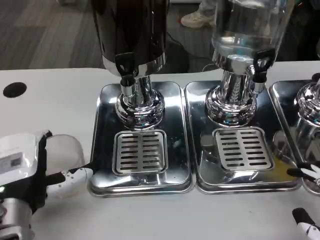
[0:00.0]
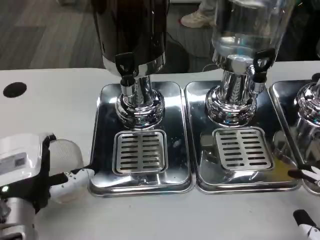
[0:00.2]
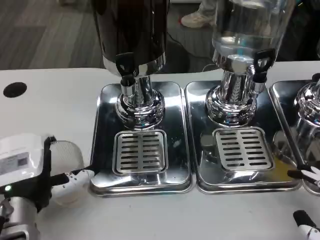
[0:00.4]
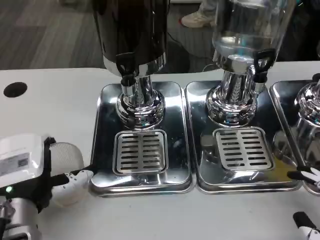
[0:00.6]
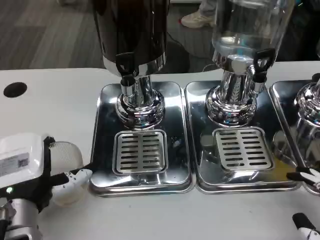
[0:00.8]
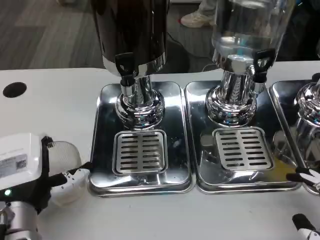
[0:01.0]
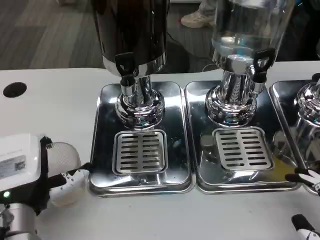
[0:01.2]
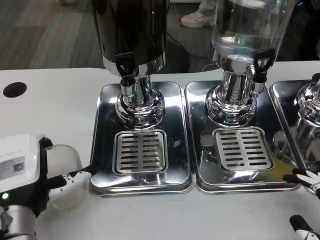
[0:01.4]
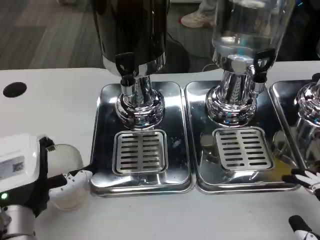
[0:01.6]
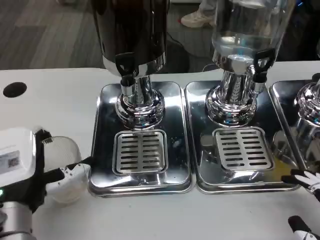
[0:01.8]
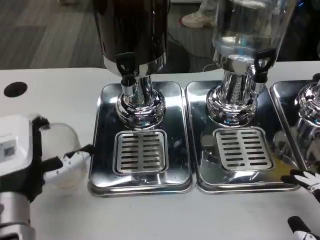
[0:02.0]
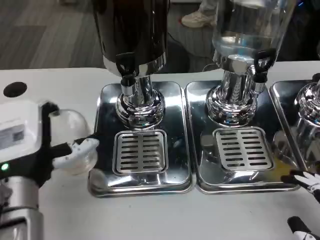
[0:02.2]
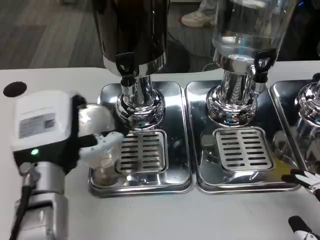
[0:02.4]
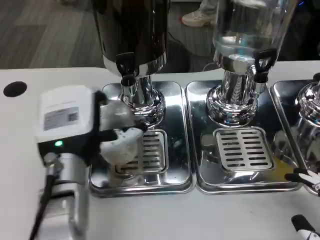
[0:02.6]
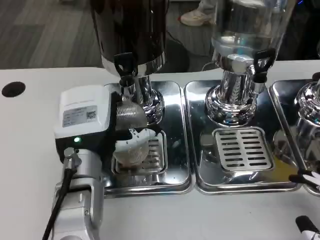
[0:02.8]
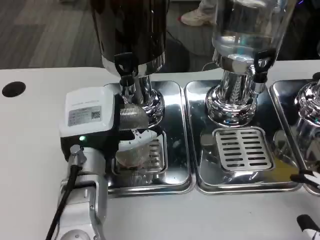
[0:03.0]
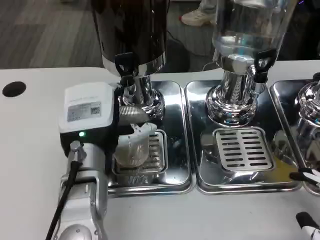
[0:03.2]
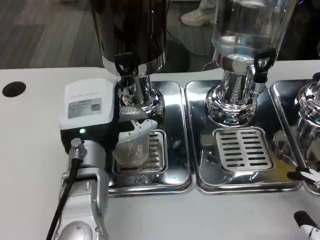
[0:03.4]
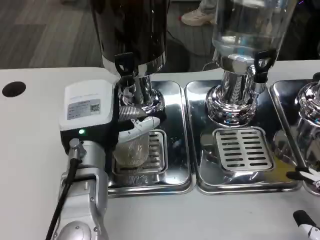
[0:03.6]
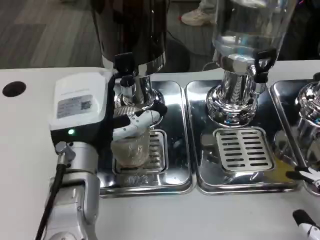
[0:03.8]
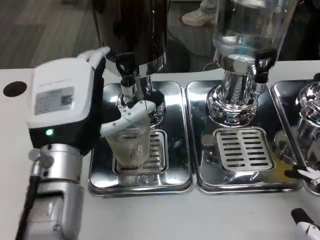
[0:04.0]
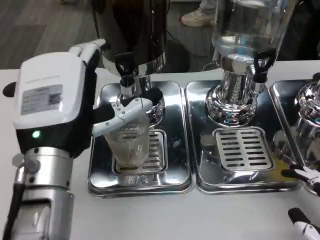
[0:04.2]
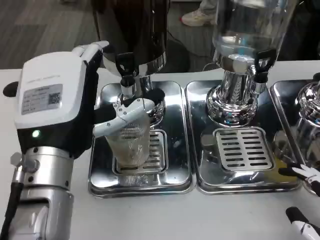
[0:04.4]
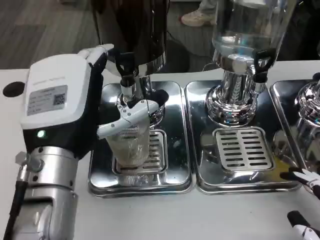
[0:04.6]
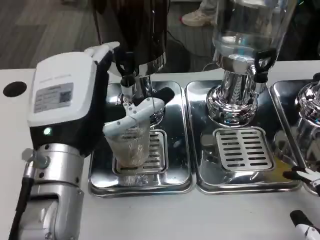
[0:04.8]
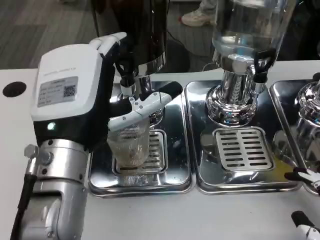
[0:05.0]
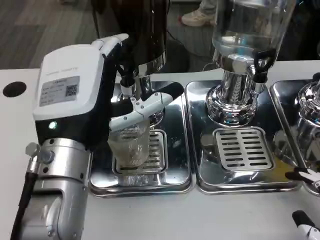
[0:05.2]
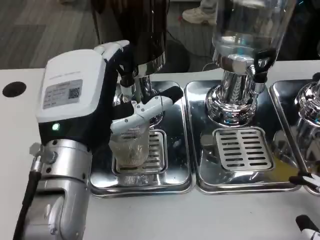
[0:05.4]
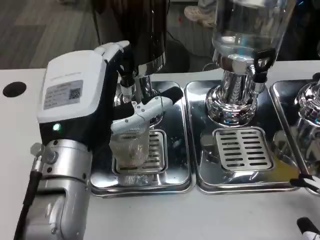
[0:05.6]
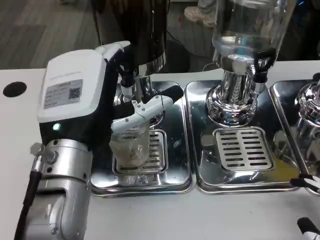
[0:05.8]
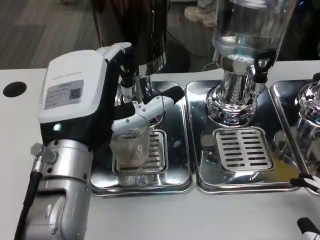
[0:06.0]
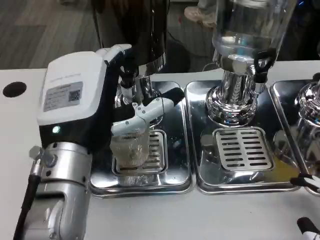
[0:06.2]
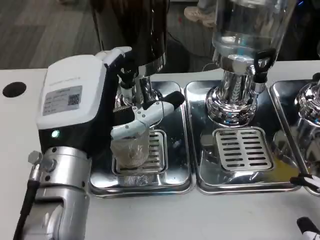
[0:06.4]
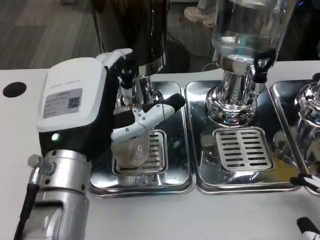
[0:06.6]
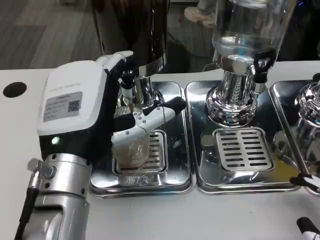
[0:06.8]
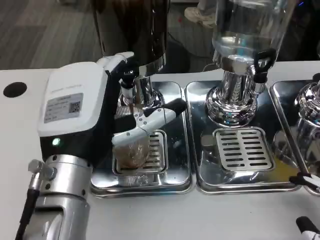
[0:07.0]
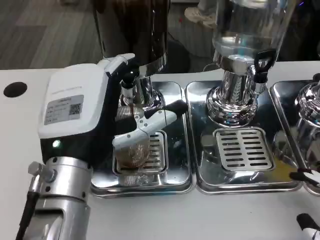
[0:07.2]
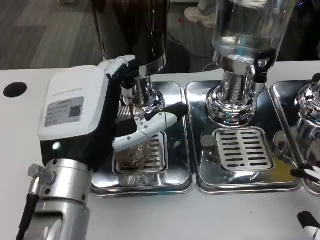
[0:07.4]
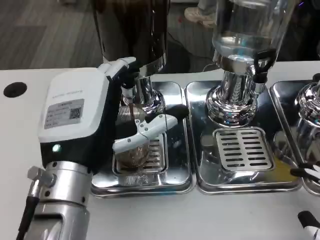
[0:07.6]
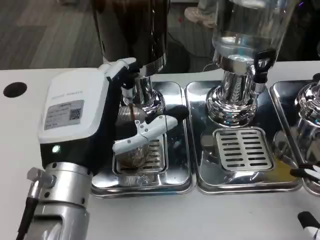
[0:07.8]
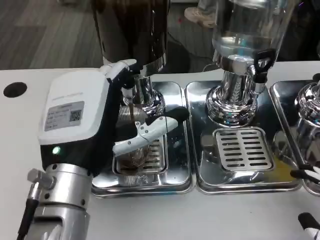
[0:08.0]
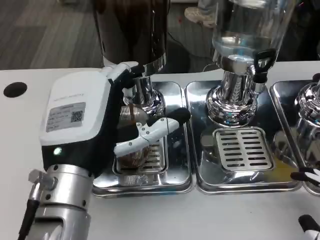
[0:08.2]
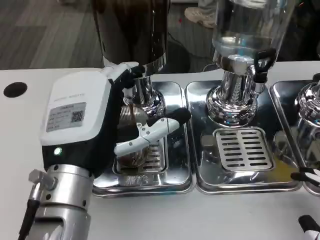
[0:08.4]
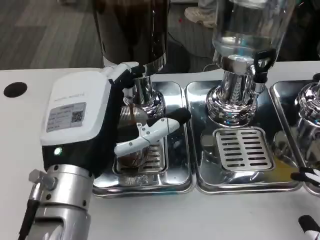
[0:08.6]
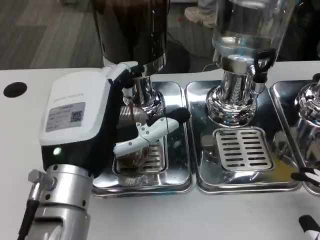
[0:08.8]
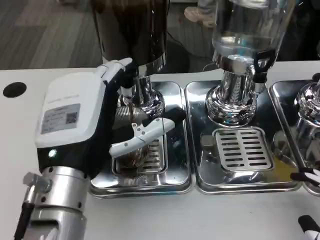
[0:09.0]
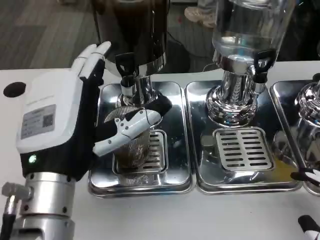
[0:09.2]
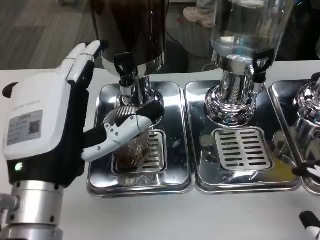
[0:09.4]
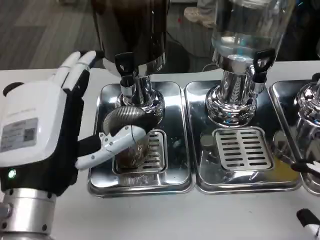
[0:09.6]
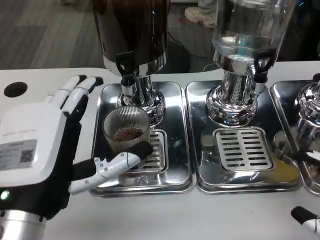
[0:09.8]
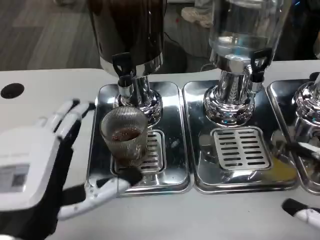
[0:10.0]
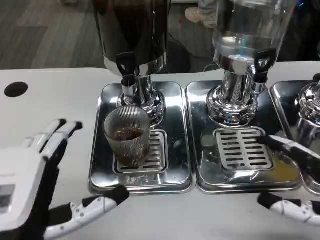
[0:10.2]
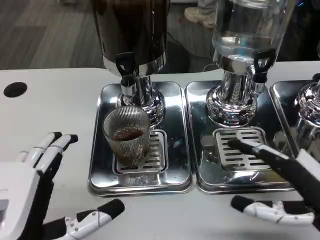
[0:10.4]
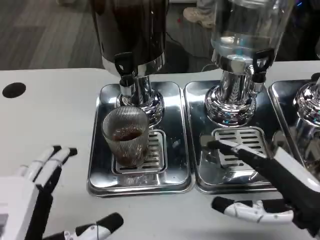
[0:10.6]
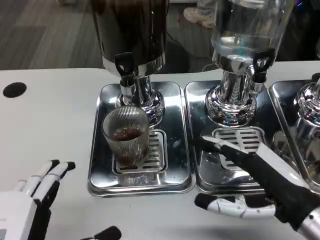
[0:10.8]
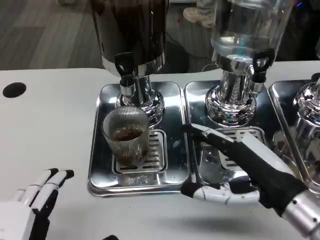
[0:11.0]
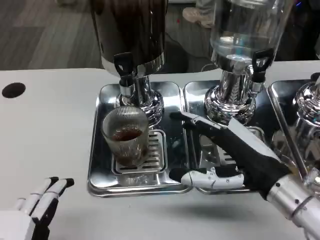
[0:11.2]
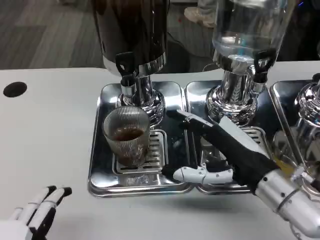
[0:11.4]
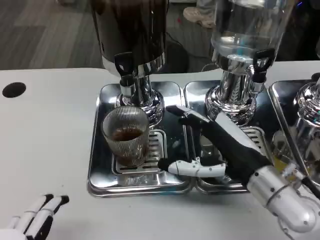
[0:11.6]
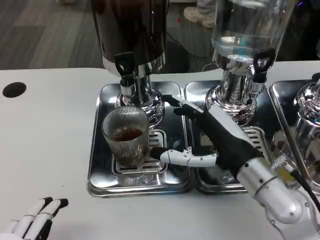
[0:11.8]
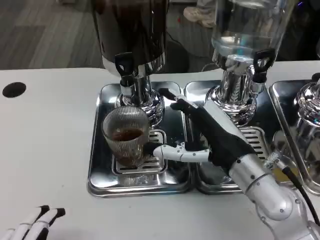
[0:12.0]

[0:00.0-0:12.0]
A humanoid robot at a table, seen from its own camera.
Task of the whole recording: Grasp the cup under the faucet to collect the drink, then remove the cup.
0:00.0 to 0:01.6: The hands move only a little.
0:01.6 to 0:03.0: The left hand is displaced forward and to the right by roughly 10 cm.
0:03.0 to 0:04.4: The left hand moves upward, some 5 cm.
0:07.6 to 0:09.0: The two hands keep their place.
0:09.0 to 0:10.4: The left hand is displaced backward and to the left by approximately 10 cm. Meanwhile the right hand is displaced forward by some 10 cm.
0:10.4 to 0:12.0: The left hand shifts some 5 cm backward, while the right hand goes approximately 15 cm to the left and forward.

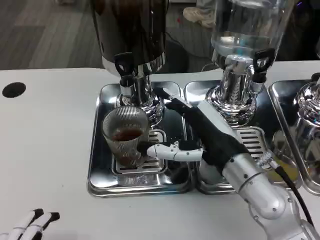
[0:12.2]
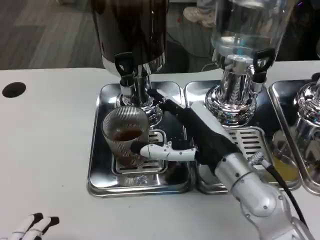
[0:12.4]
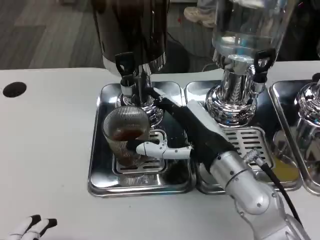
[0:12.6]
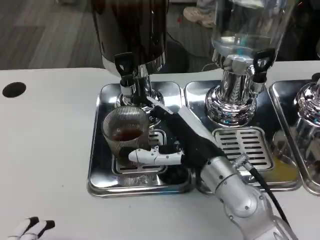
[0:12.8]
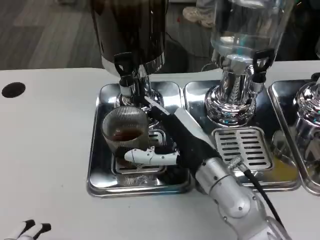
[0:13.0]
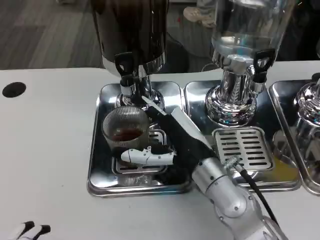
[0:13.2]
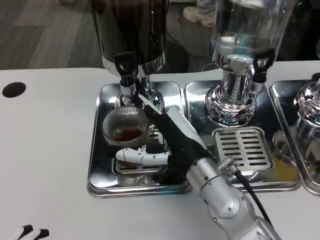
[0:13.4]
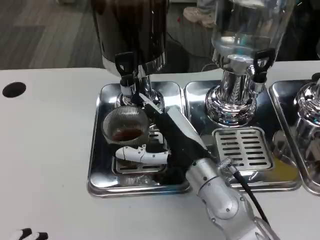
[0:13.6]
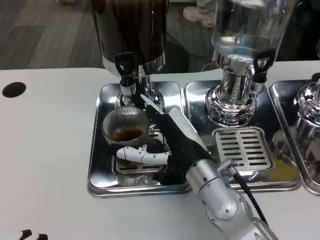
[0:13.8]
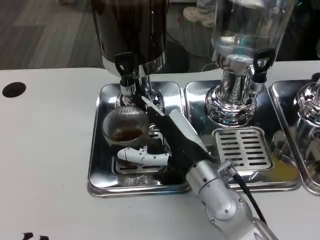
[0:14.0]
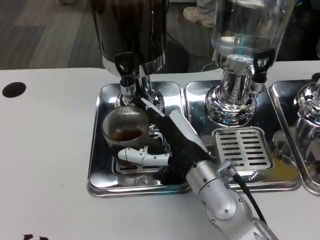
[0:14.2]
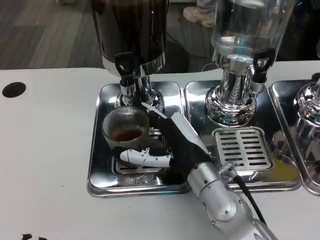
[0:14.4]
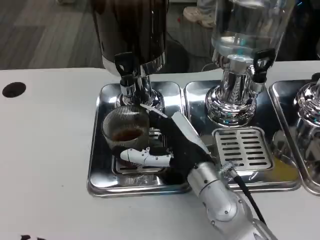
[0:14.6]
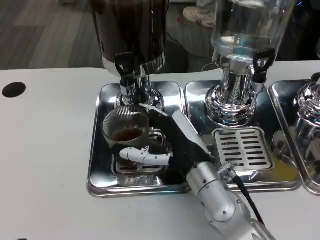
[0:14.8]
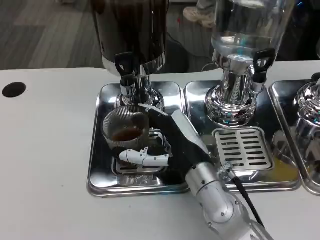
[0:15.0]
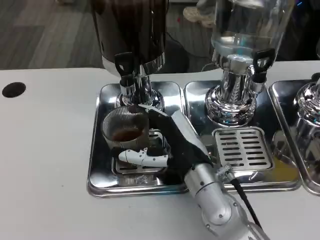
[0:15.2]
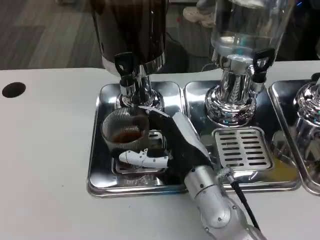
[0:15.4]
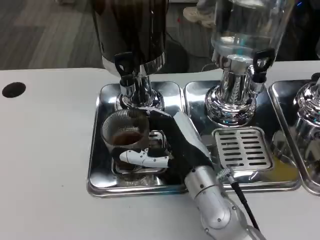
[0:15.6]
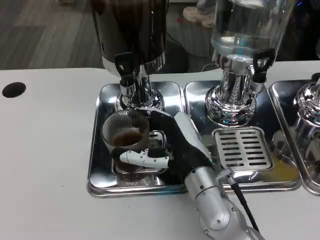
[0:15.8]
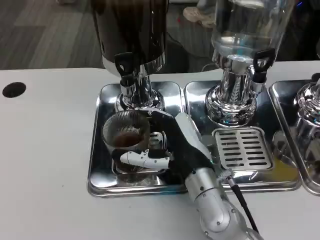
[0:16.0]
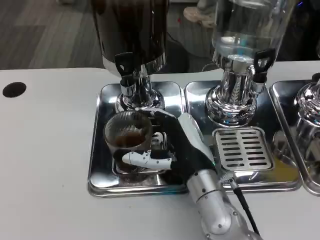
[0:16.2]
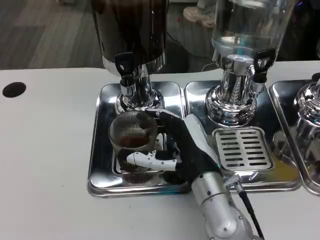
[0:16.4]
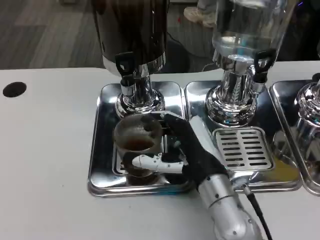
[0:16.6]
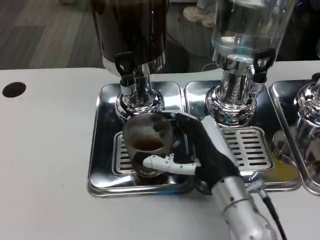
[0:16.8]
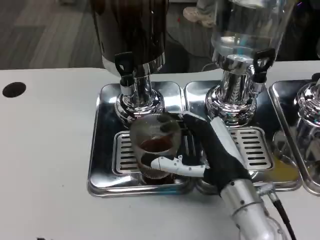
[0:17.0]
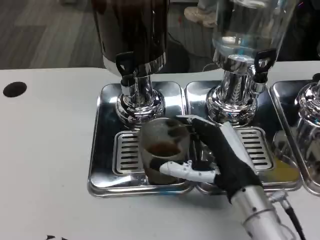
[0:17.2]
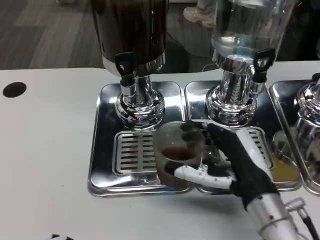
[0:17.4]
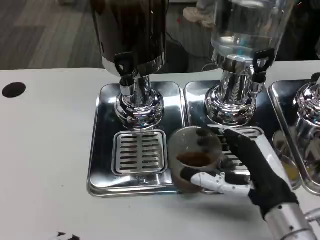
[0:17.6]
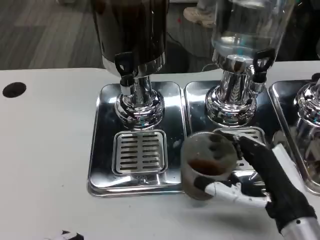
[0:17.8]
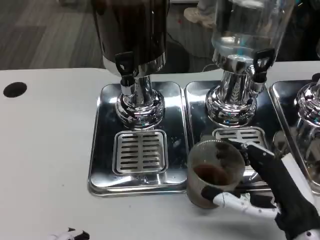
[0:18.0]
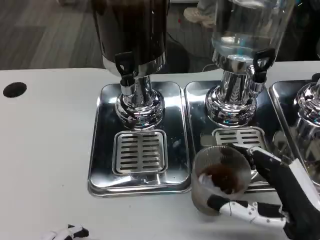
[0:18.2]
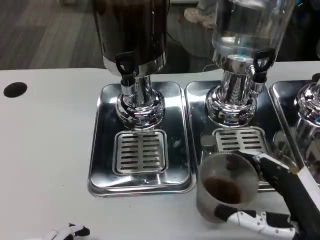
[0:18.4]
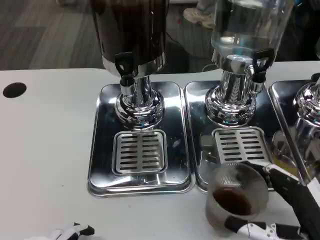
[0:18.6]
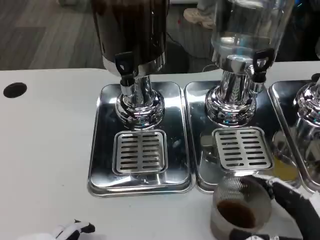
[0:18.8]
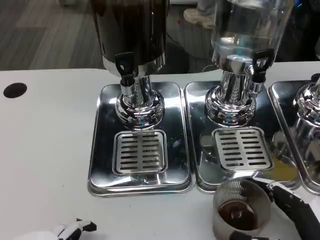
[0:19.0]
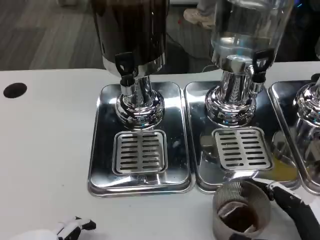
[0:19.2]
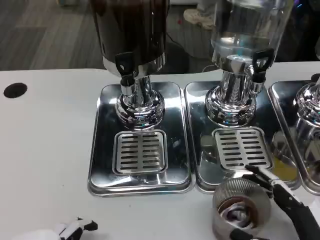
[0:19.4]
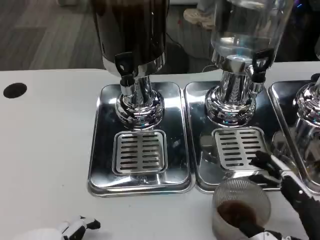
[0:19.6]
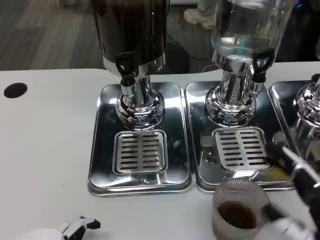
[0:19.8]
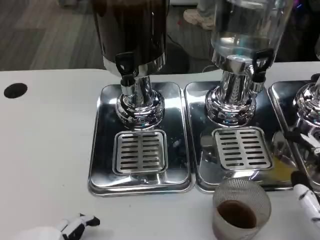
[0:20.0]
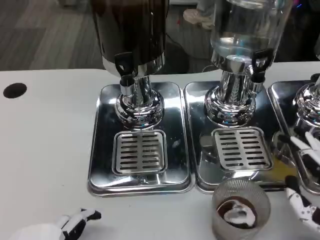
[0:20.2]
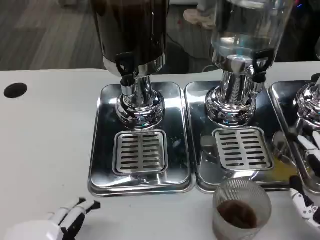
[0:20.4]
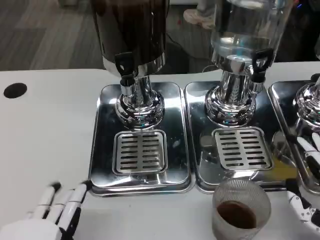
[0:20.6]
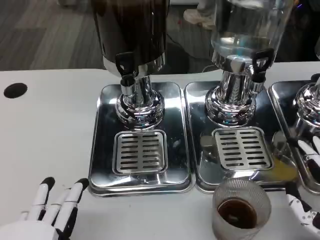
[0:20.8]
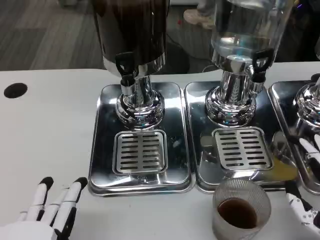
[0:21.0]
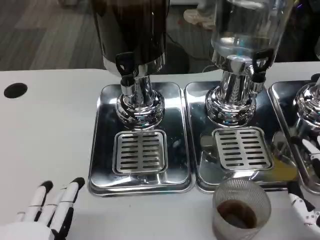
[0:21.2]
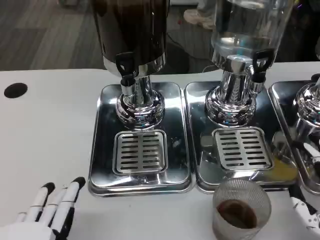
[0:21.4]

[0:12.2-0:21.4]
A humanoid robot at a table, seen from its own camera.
Task of the whole recording: Grasp the cup under the faucet to collect the drink, then remove the cup.
0:12.2 to 0:13.8: The right hand shifts about 5 cm to the left.
0:13.8 to 0:15.2: Both hands stay about where they are.
0:15.2 to 0:16.8: The hands move only a little.
0:16.8 to 0:18.4: The right hand travels to the right and backward by roughly 15 cm.
0:18.4 to 0:19.8: The hands make only small movements.

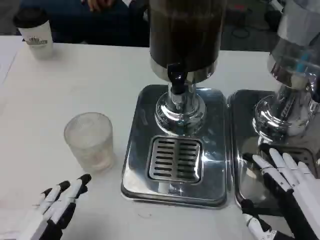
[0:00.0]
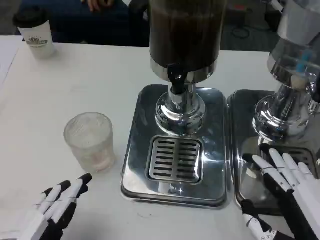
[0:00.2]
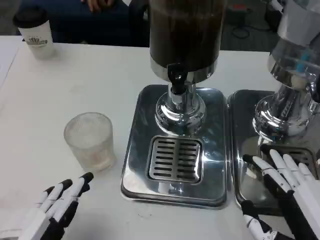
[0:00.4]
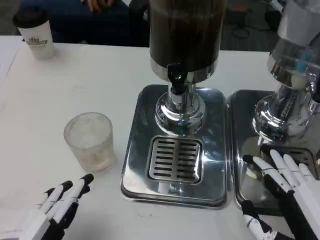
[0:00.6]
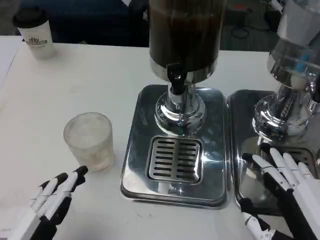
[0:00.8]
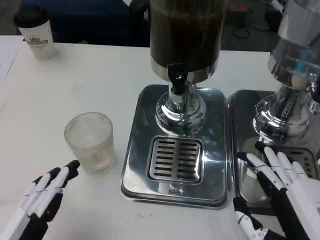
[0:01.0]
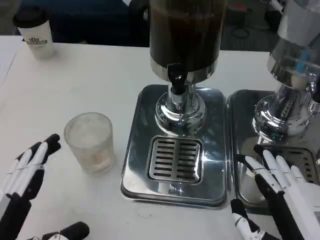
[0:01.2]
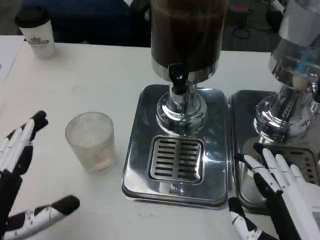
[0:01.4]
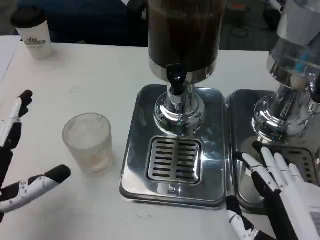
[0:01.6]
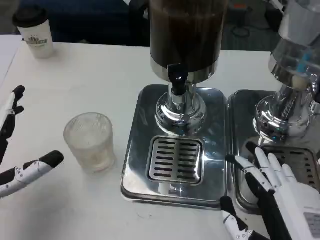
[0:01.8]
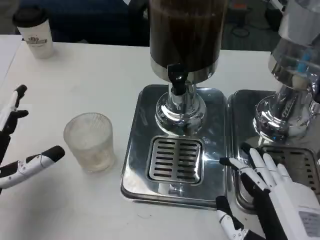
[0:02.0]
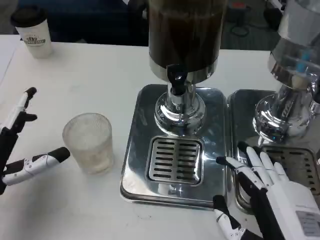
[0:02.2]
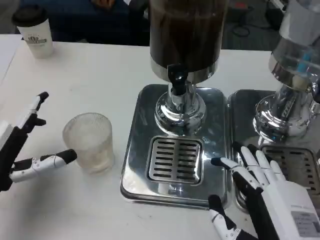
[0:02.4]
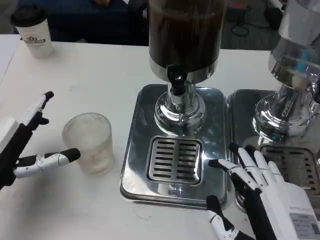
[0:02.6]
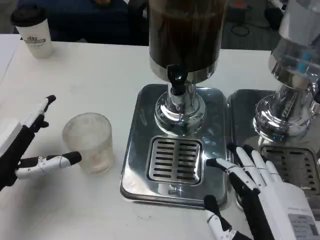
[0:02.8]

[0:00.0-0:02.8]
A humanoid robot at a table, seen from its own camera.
Task of the whole recording: Grasp the cup under the faucet to collect the drink, then remove the cup.
0:00.0 to 0:01.4: The left hand heads forward, covering roughly 5 cm.
0:01.4 to 0:02.8: The left hand travels forward by approximately 10 cm.
